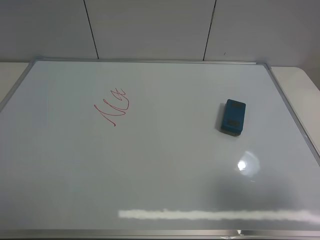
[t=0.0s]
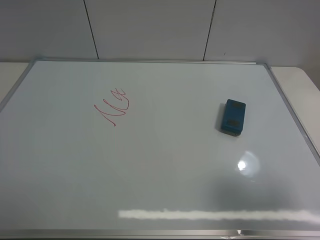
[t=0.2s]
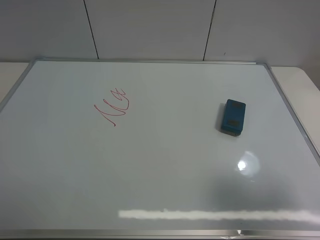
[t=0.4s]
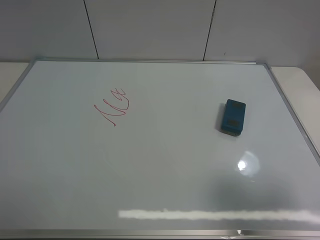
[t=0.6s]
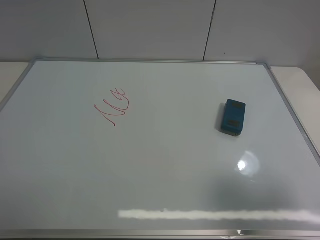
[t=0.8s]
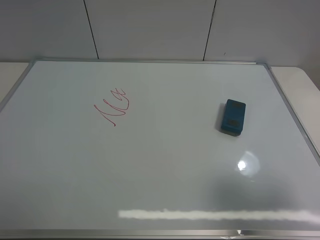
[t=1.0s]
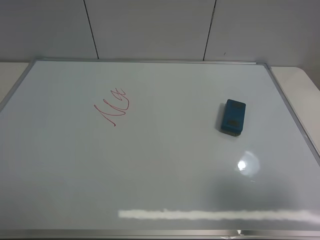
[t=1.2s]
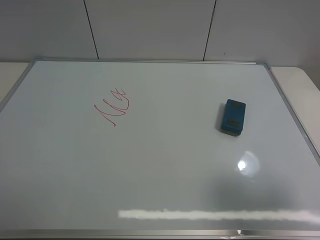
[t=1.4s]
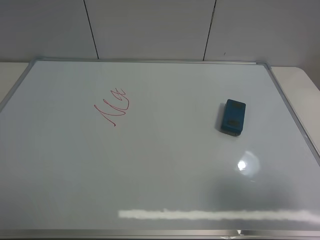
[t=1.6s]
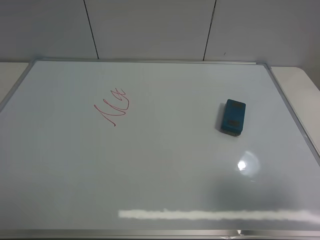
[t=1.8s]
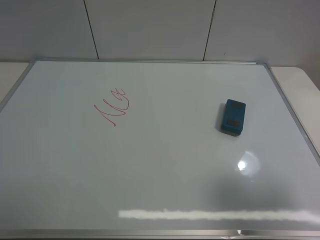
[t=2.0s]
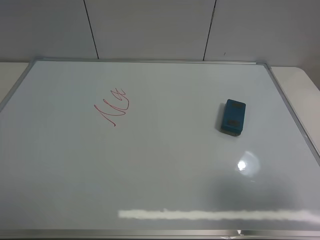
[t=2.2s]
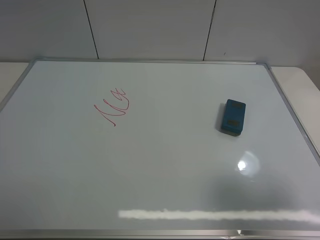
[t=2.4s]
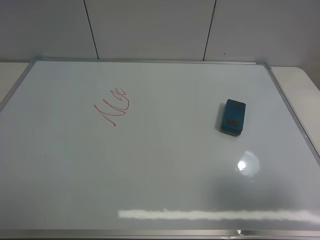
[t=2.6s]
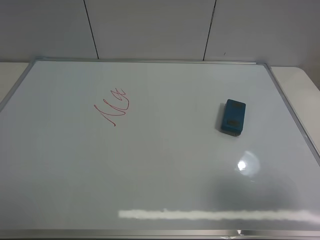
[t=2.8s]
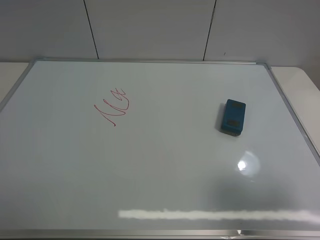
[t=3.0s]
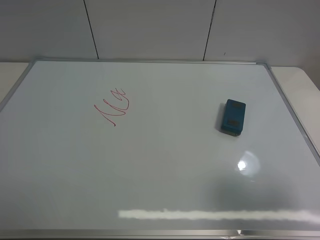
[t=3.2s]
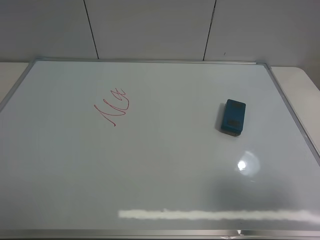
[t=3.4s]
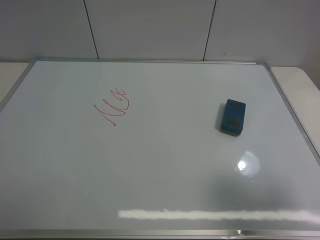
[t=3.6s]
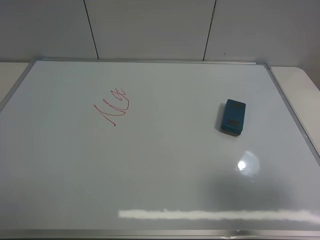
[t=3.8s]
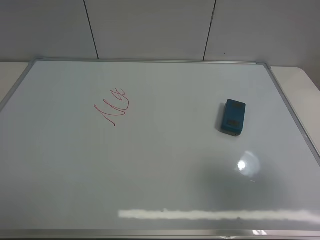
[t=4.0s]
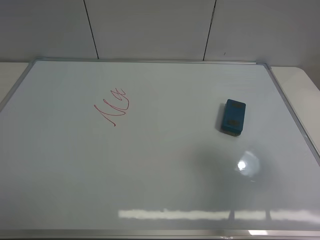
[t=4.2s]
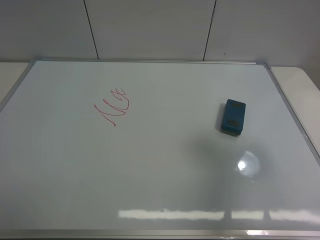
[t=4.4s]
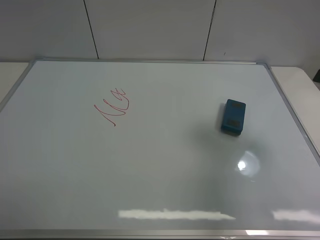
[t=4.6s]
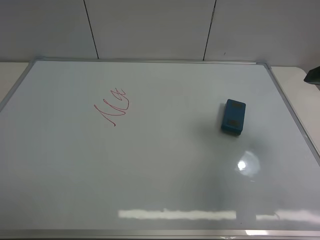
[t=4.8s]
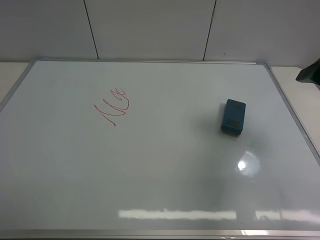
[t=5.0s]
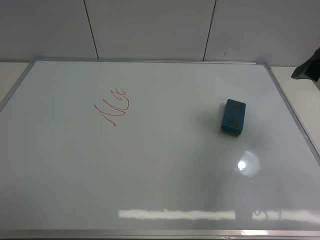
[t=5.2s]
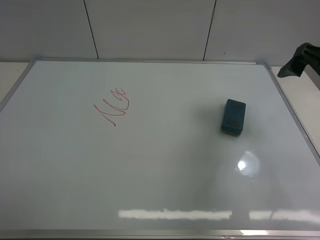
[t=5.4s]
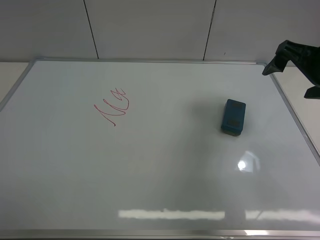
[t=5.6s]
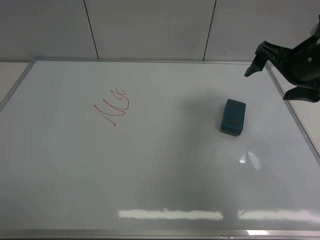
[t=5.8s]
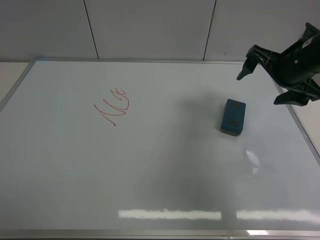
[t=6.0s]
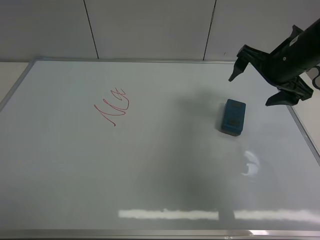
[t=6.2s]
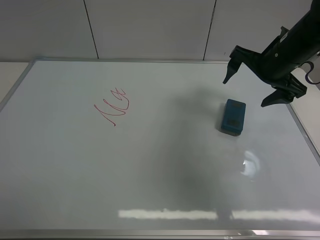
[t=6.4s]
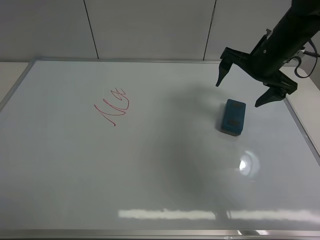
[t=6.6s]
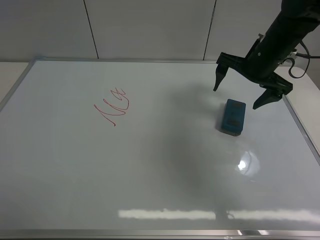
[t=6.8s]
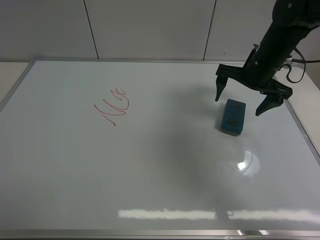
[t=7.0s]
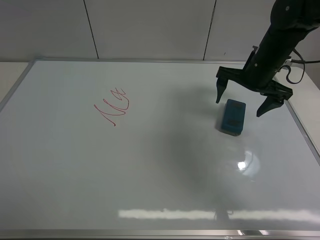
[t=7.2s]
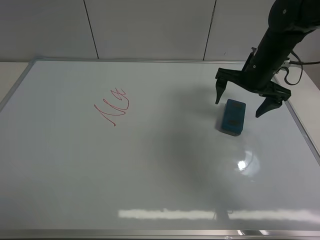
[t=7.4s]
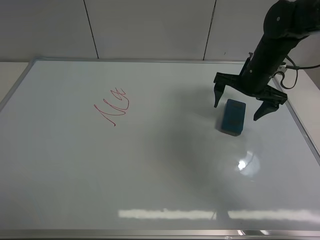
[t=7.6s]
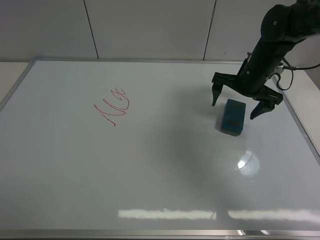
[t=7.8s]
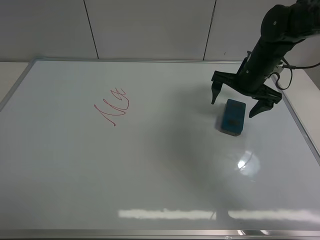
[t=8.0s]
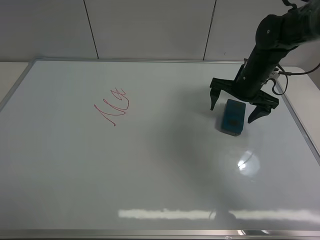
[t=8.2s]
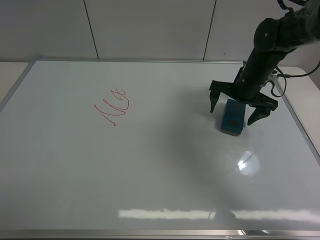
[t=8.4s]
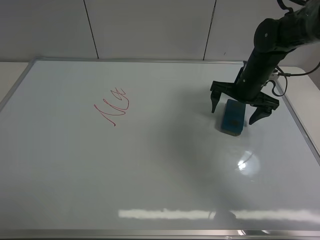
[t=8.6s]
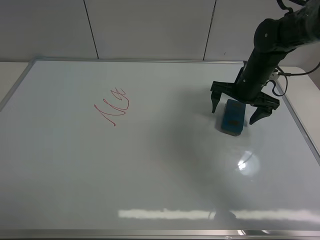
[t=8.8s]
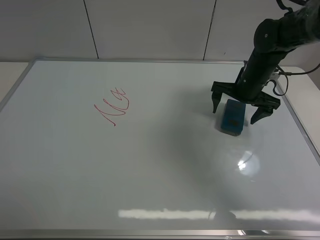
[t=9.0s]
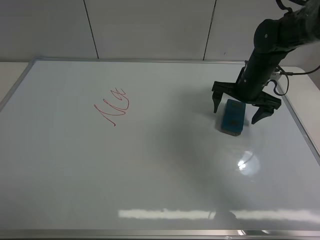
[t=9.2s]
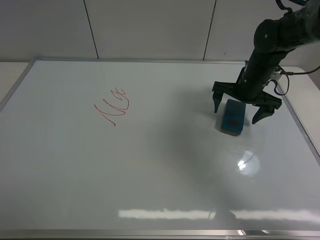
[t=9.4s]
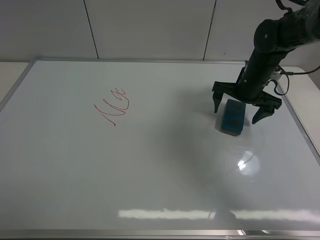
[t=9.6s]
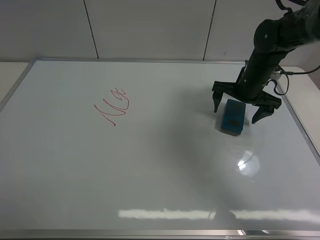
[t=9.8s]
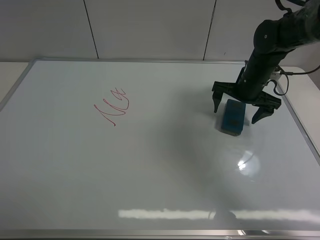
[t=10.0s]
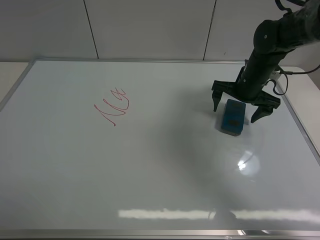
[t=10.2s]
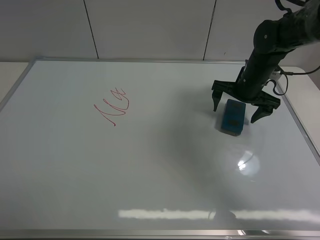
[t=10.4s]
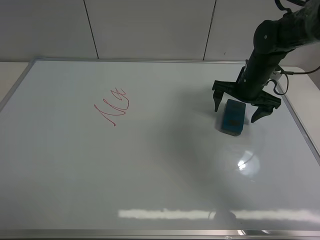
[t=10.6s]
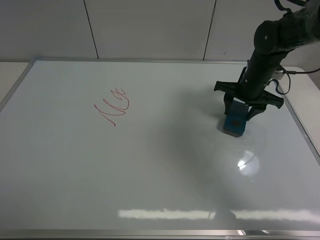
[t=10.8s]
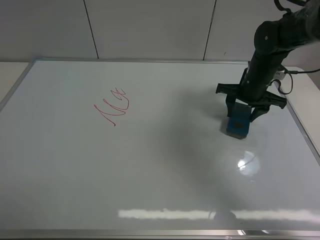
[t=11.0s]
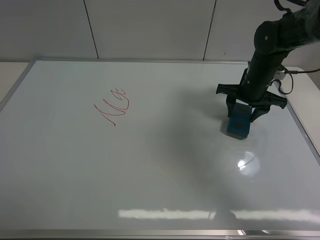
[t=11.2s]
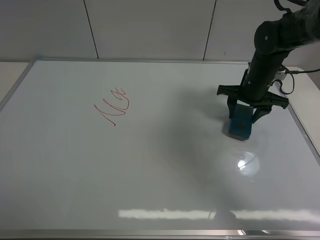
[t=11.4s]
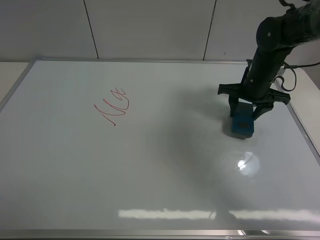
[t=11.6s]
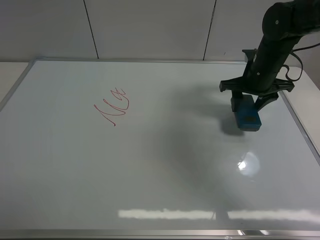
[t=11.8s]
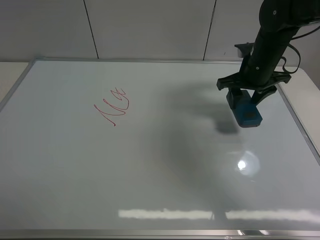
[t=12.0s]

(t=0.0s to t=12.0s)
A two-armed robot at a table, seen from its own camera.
Task of the whole recording: use the right gripper to pick up the board eraser, wipe the notes on the whiteboard clean, and then put them back in place.
Step, t=0.0s - t=11.6s: Pick up the board eraser with right gripper.
t=0.0s - t=3.0s: Both grippers stay about where they are.
t=3.0s - t=4.4s: The right gripper is displaced forward by about 10 cm.
t=4.4s - t=6.0s: The right gripper is displaced forward by some 20 cm.
t=6.0s - t=7.6s: The right gripper goes some 10 cm forward and downward.
t=7.6s - t=9.0s: The grippers make only small movements.
t=9.0s - t=10.4s: Neither gripper changes place.
t=10.4s - t=12.0s: The right gripper heads upward, covering some 5 cm, and closes its fingers.

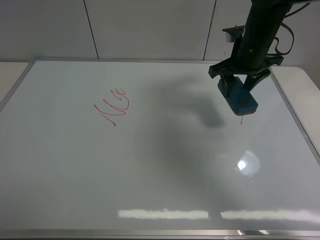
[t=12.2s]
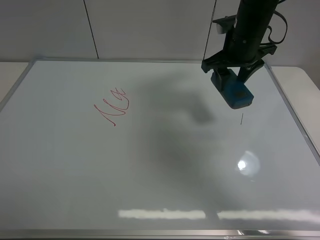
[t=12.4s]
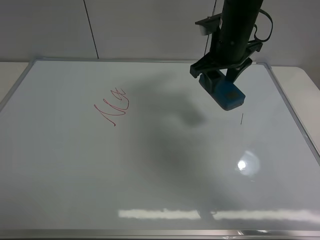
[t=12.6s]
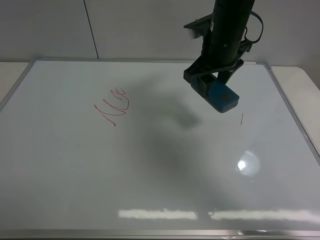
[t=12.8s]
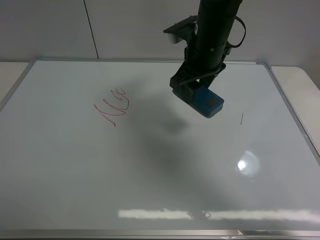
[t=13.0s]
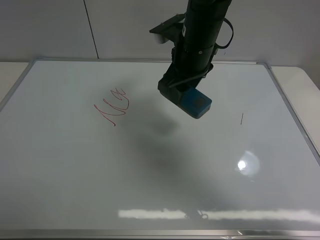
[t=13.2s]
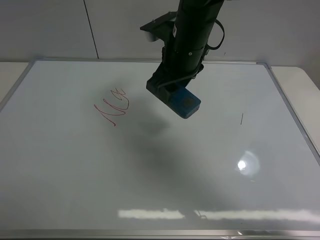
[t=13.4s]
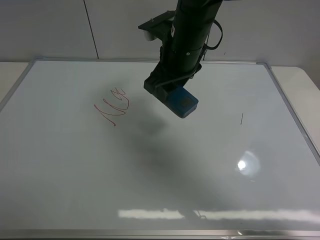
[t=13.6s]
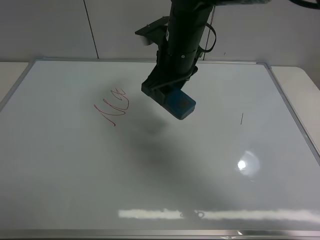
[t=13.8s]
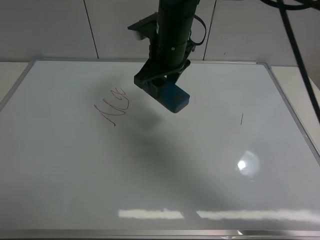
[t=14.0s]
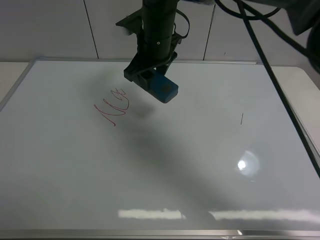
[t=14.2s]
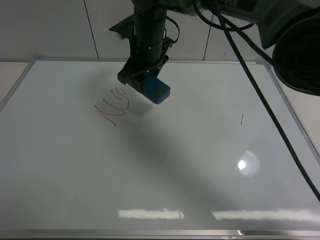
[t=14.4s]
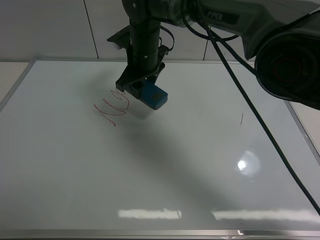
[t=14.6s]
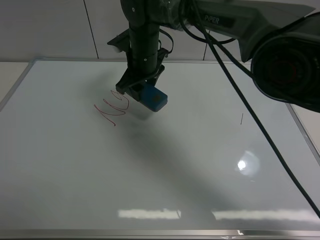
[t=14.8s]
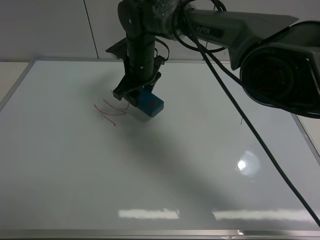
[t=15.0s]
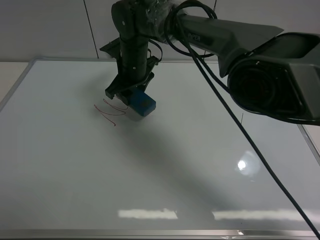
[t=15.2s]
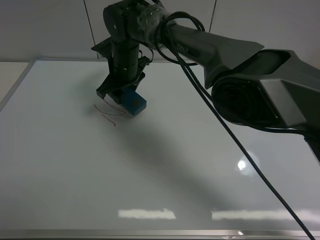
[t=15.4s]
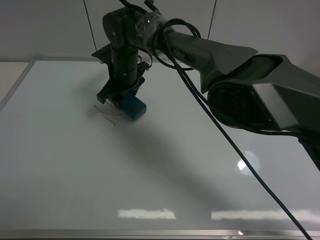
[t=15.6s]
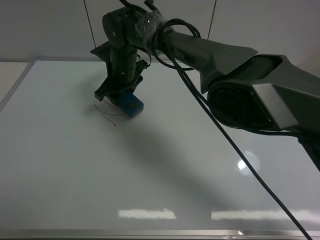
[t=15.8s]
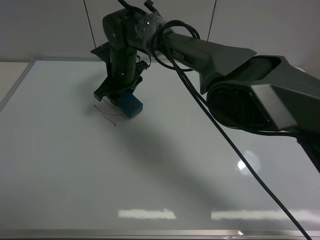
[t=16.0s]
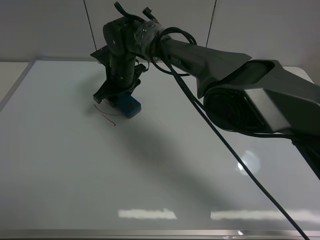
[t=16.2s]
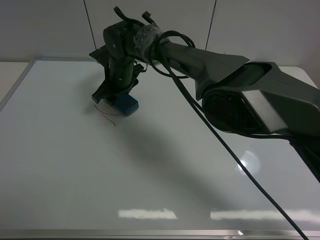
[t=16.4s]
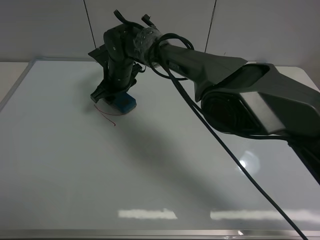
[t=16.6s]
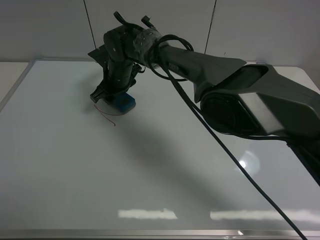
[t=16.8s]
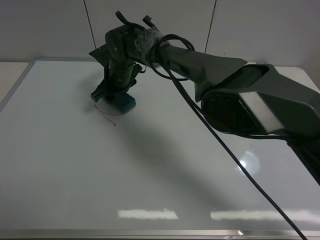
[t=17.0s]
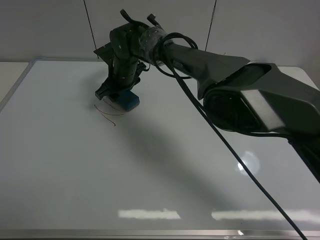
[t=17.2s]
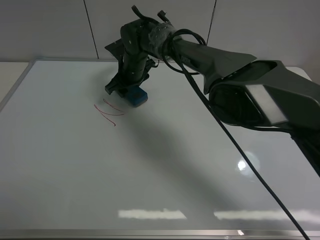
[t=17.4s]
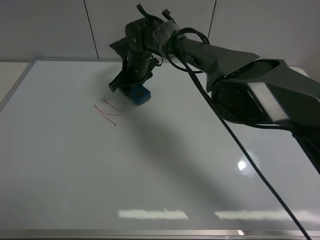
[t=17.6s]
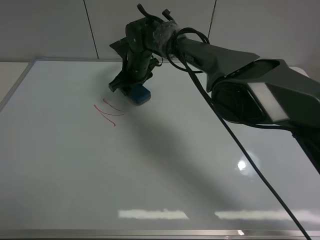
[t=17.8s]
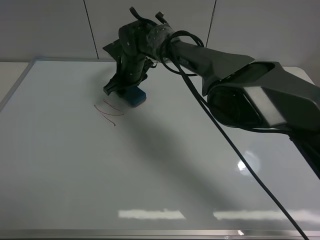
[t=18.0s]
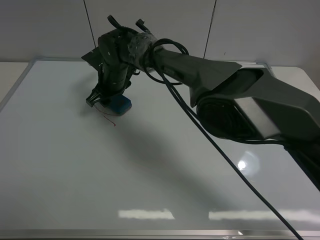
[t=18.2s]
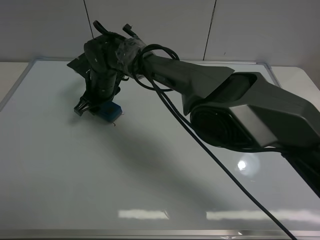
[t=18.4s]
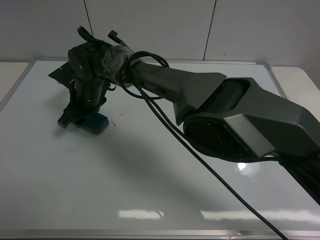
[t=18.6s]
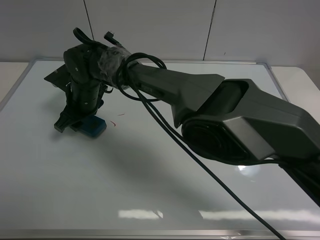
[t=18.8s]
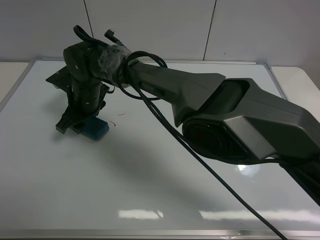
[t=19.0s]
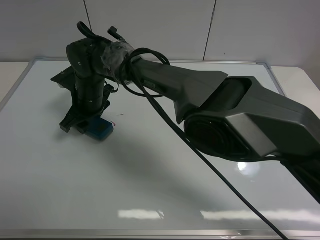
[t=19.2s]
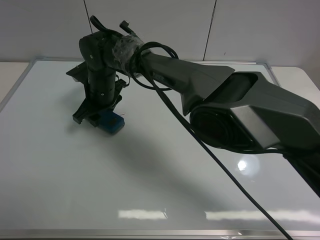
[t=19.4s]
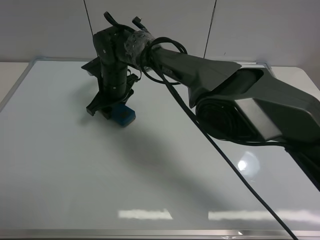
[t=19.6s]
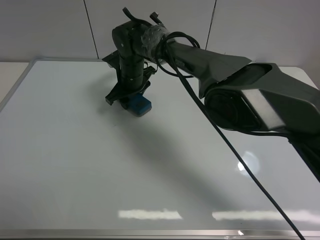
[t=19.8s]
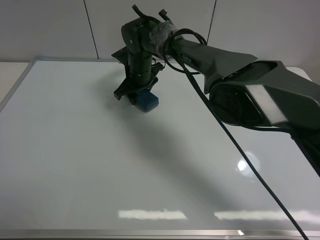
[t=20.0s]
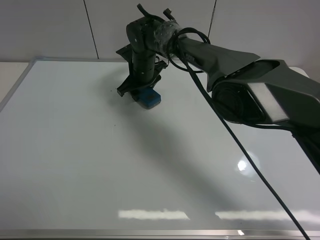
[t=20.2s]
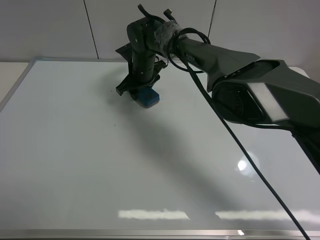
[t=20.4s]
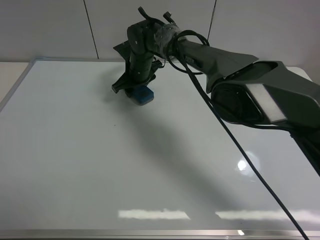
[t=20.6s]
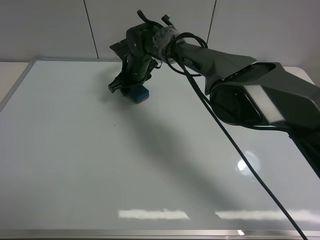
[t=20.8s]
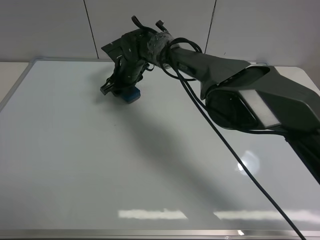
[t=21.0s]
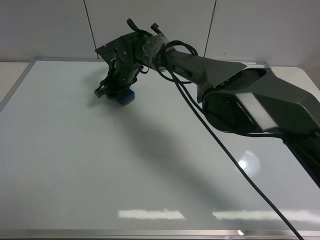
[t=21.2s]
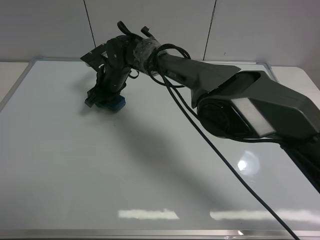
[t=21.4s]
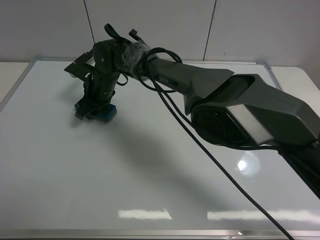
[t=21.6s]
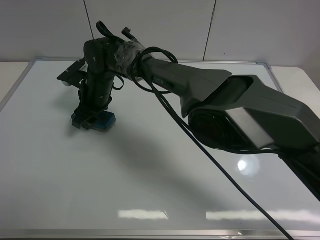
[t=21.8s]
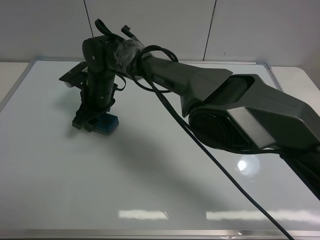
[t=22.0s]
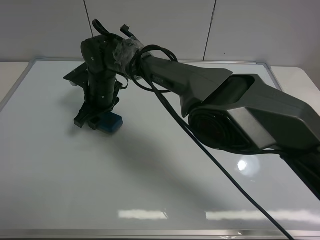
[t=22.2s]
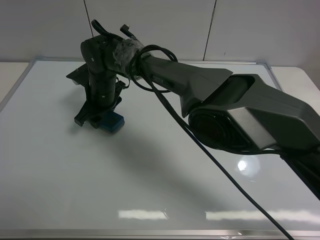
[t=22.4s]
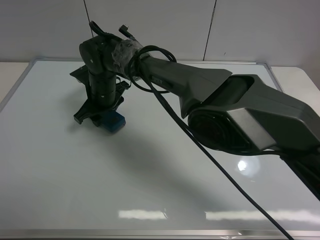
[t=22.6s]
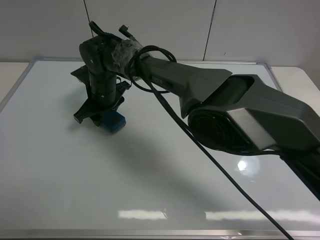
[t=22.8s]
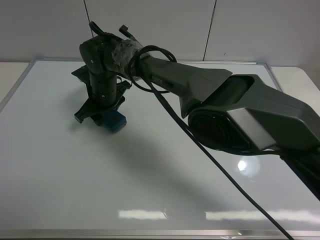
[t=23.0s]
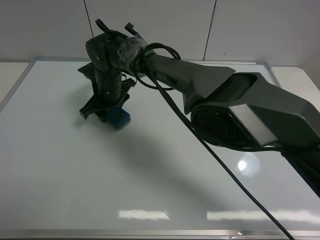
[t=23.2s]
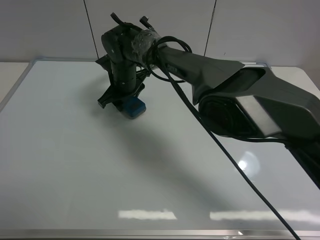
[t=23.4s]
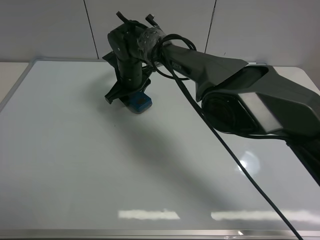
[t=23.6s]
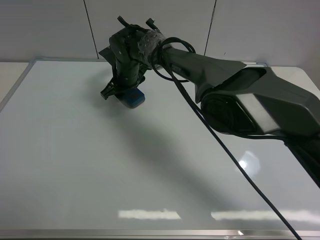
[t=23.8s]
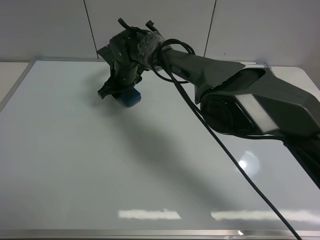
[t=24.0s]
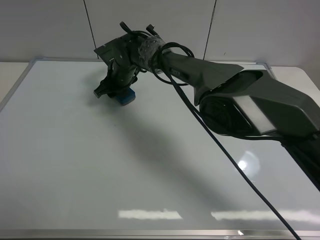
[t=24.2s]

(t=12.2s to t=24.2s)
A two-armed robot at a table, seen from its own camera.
Task of the whole recording: use the right gripper to pick up the board eraser, wipe the notes on the whiteboard clean, and then put them back in place.
t=12.2s - t=13.8s: The right gripper goes approximately 15 cm to the left.
t=13.8s - t=15.2s: The right gripper goes approximately 15 cm to the left, downward and forward.
t=15.2s - t=16.6s: The right gripper changes place by some 5 cm.
t=16.6s - t=18.2s: The grippers move only a little.
t=18.2s - t=19.8s: The right gripper goes about 5 cm to the right.
t=19.8s - t=21.2s: The grippers move only a little.
t=21.2s - t=22.6s: The right gripper shifts approximately 10 cm backward.
t=22.6s - t=24.2s: The right gripper heads forward, covering approximately 10 cm.
